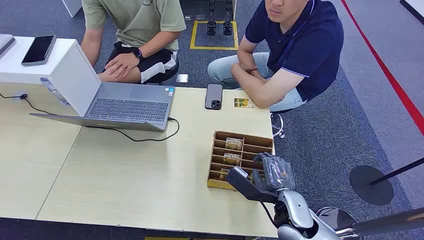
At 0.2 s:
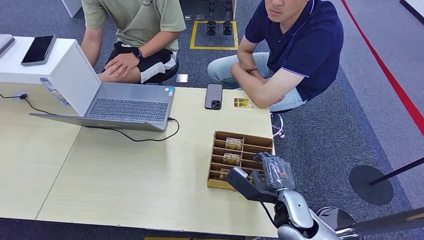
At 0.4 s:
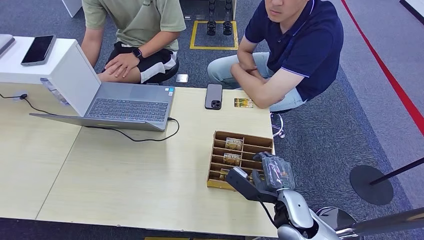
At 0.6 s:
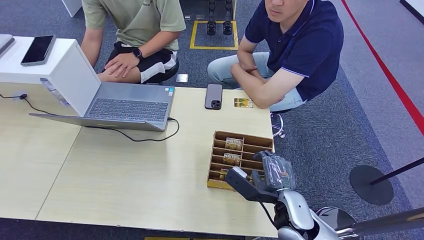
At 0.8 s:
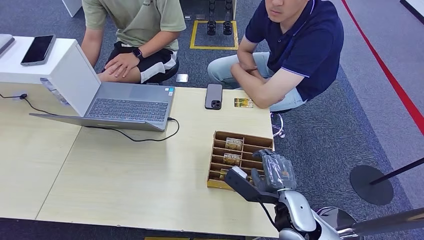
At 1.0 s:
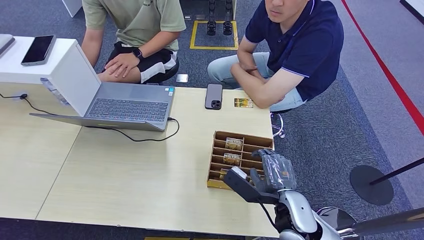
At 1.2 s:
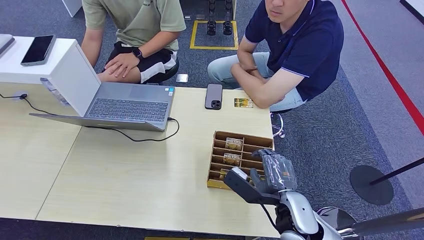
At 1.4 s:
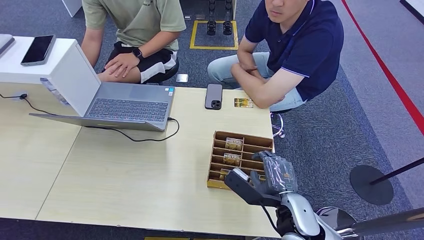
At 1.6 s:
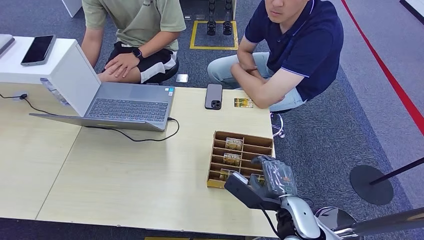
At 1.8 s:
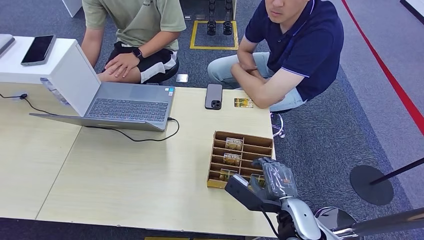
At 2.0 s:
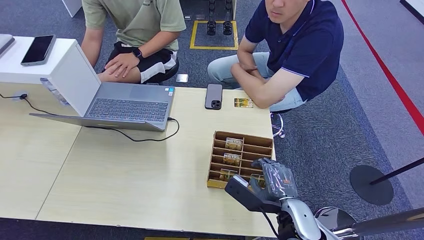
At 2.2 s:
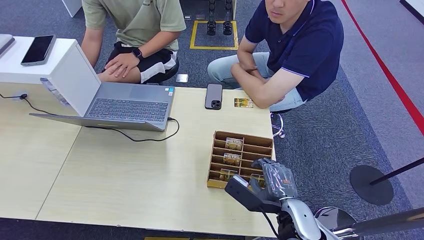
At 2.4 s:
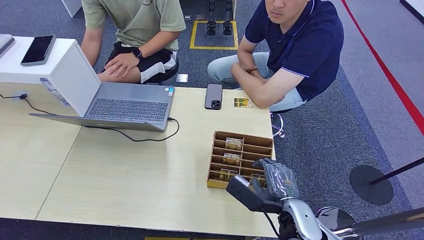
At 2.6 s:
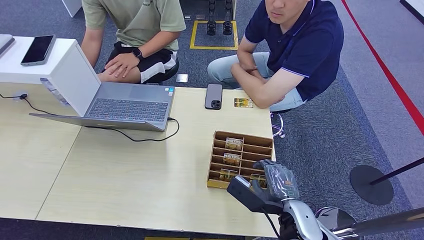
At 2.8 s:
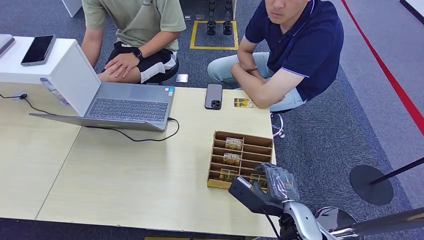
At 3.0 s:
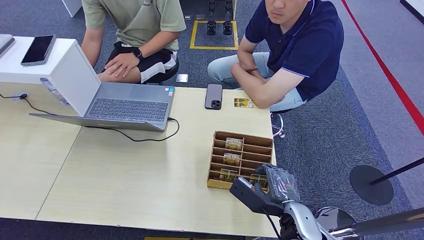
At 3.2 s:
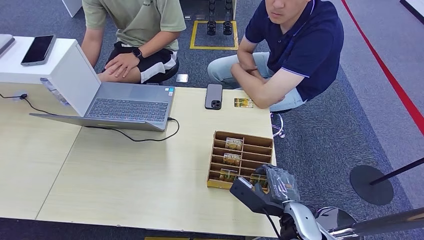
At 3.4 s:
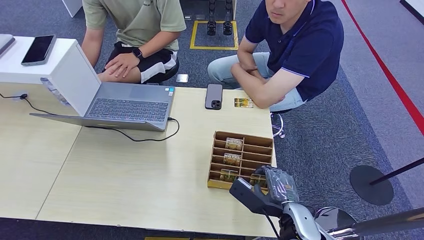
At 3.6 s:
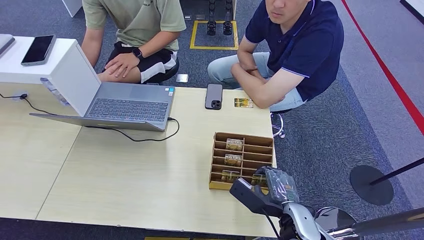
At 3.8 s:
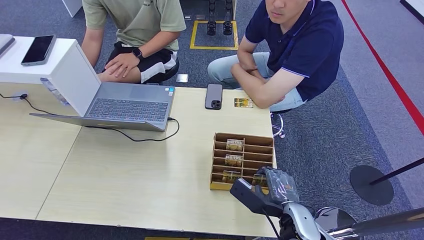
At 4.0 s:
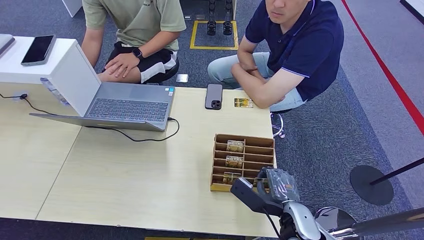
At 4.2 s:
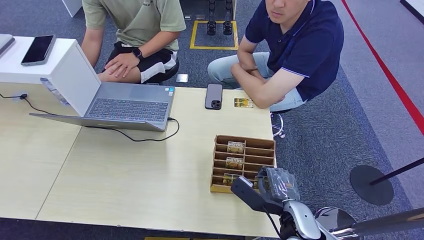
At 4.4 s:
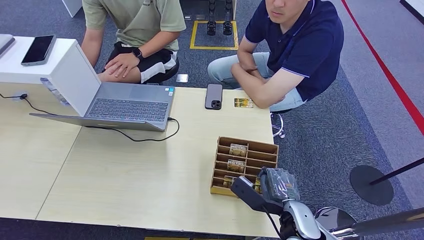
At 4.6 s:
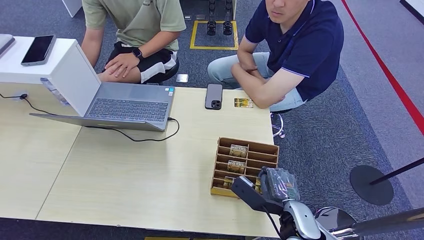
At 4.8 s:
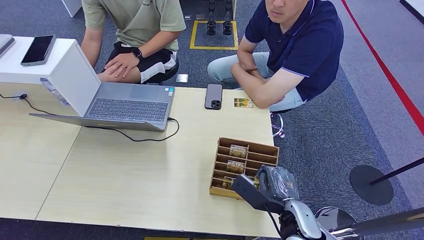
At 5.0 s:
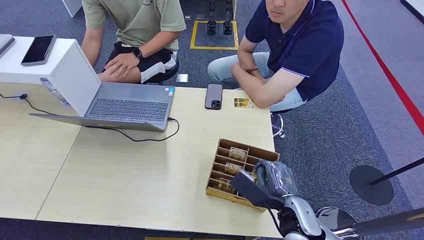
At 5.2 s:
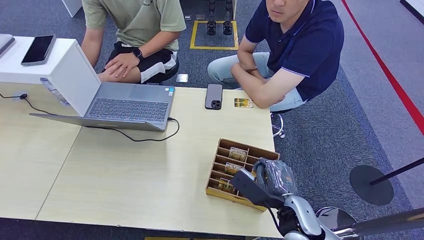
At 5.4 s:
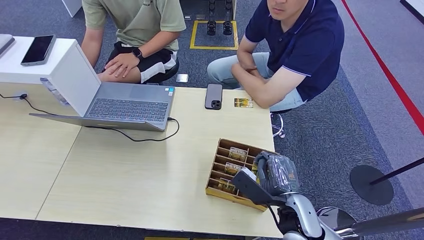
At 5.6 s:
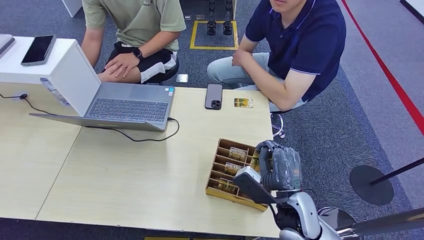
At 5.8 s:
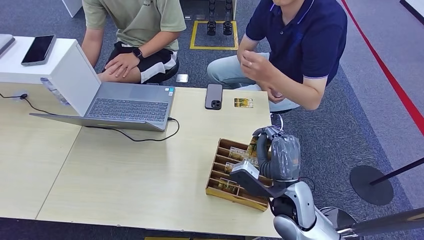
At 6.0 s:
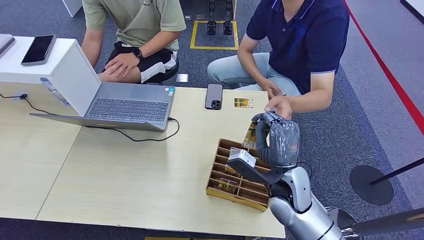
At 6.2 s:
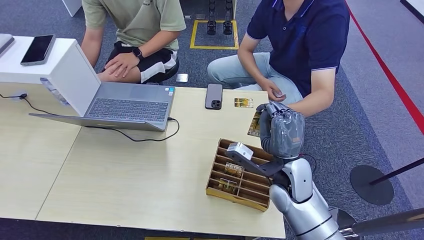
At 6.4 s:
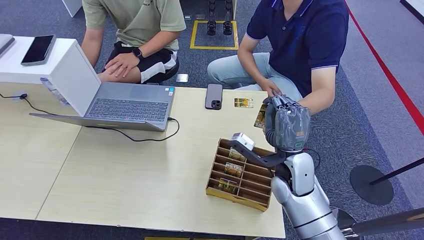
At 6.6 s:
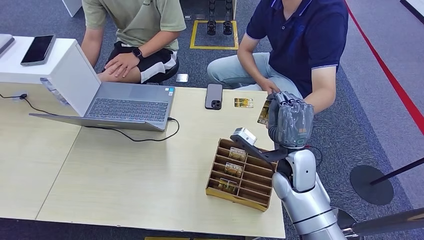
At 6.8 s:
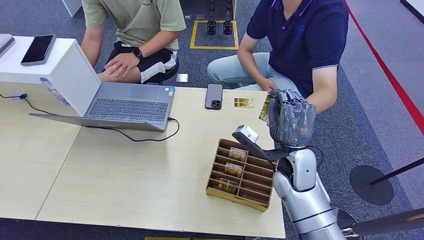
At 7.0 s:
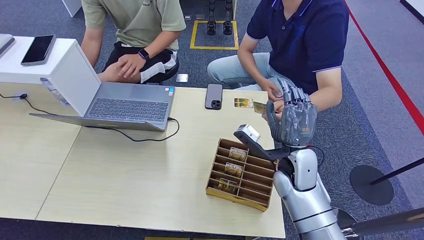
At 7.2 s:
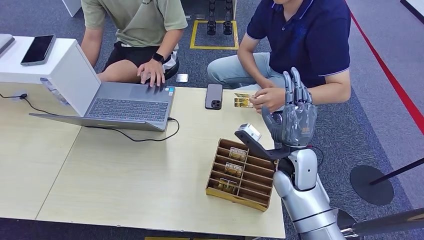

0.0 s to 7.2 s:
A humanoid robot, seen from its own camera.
Step, 0.0 to 4.8 s: Pick up the key card from the card box.
Step, 5.0 to 7.2 s: Hand the key card to the target.
1.4 to 4.4 s: There are only small adjustments of the hands.
4.4 to 5.8 s: The right hand moves upward, roughly 5 cm.
5.8 to 7.2 s: The right hand goes roughly 10 cm forward.
